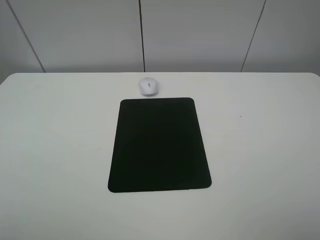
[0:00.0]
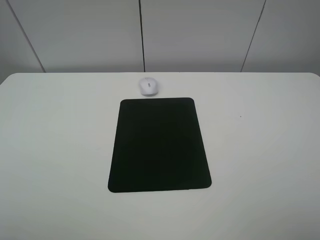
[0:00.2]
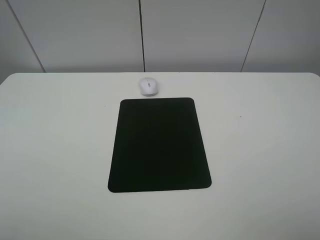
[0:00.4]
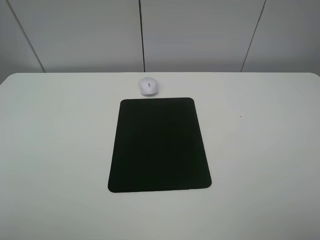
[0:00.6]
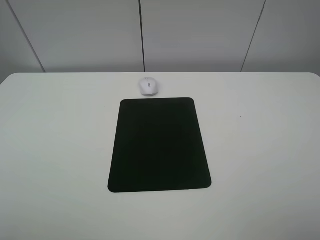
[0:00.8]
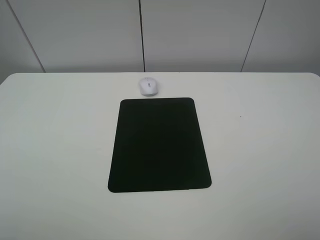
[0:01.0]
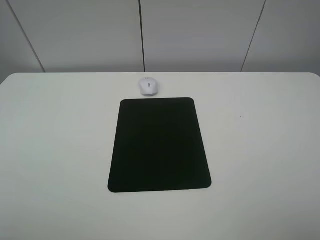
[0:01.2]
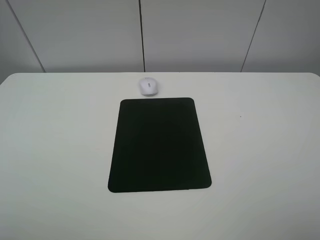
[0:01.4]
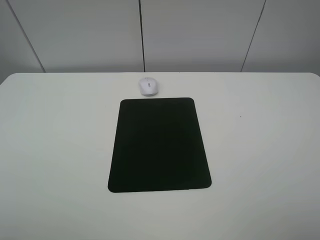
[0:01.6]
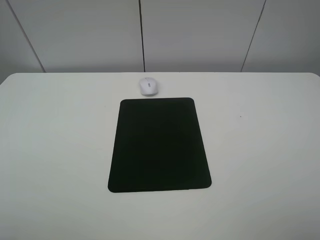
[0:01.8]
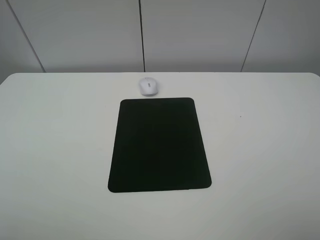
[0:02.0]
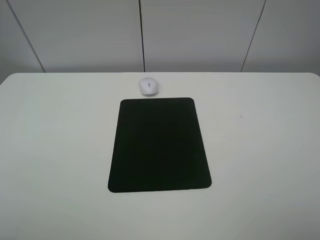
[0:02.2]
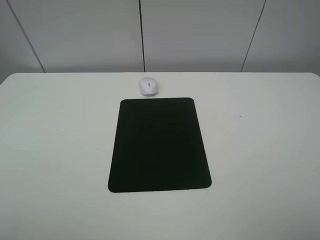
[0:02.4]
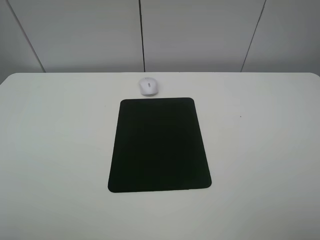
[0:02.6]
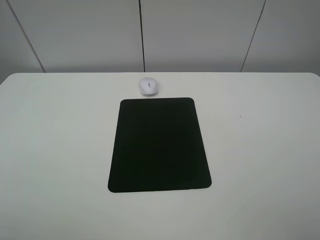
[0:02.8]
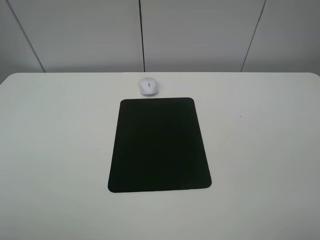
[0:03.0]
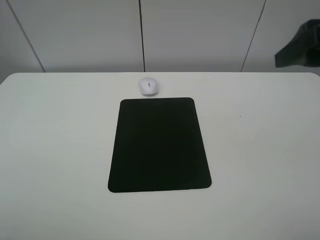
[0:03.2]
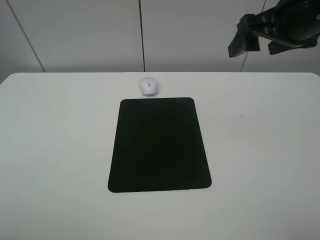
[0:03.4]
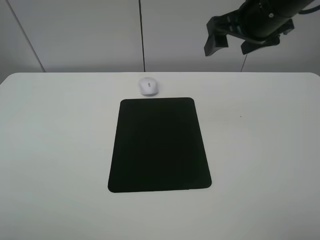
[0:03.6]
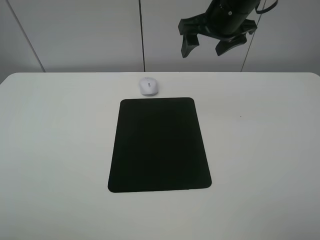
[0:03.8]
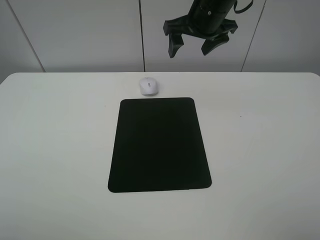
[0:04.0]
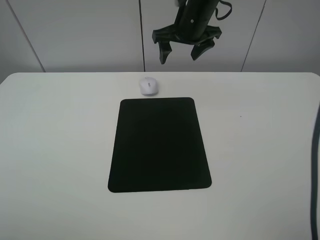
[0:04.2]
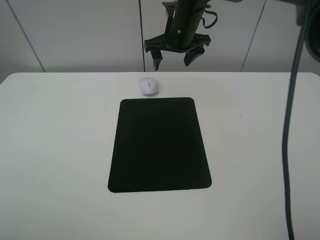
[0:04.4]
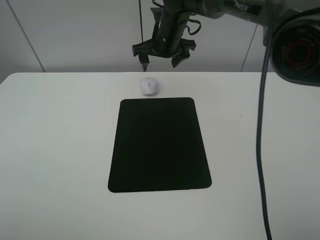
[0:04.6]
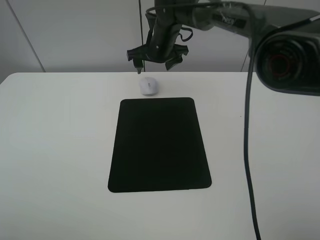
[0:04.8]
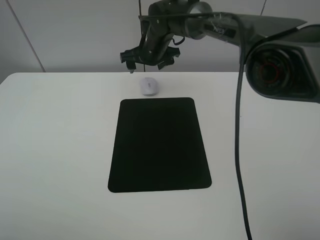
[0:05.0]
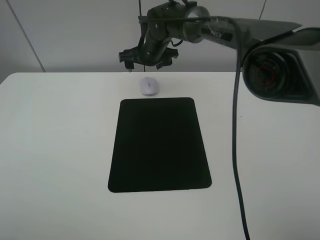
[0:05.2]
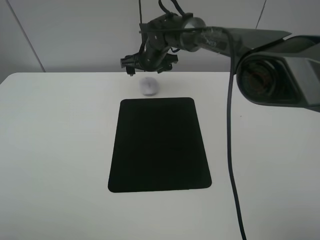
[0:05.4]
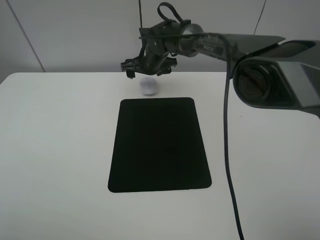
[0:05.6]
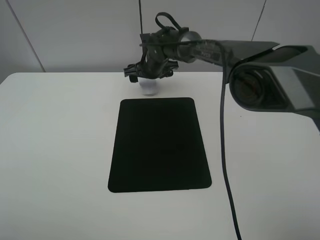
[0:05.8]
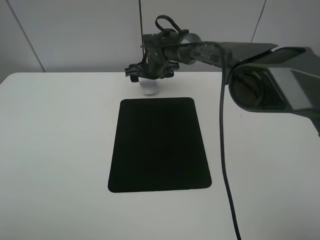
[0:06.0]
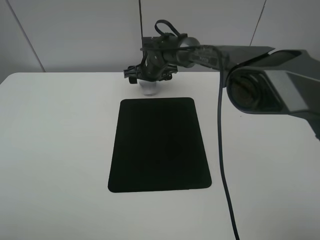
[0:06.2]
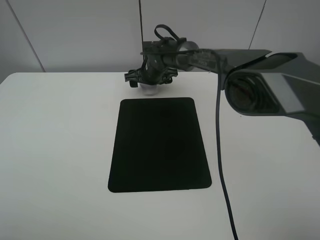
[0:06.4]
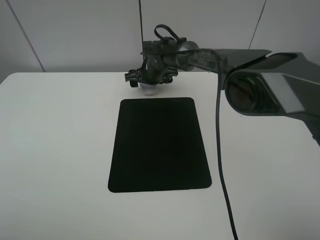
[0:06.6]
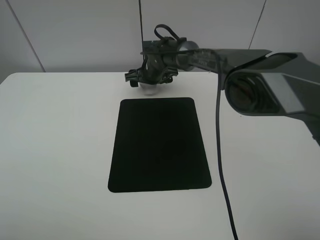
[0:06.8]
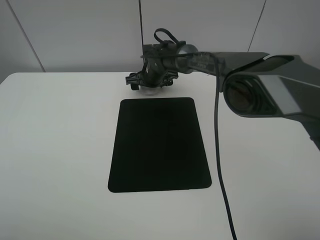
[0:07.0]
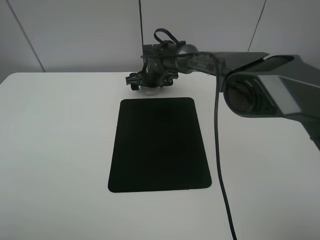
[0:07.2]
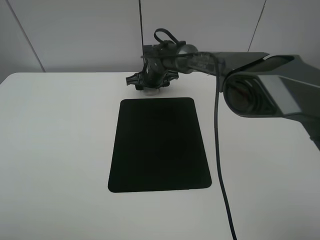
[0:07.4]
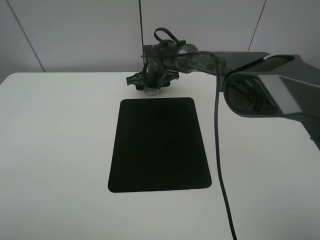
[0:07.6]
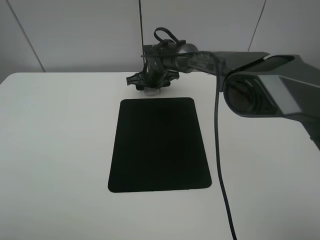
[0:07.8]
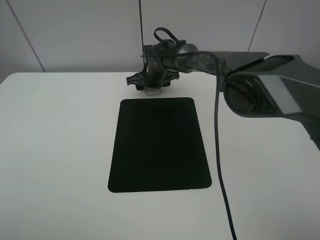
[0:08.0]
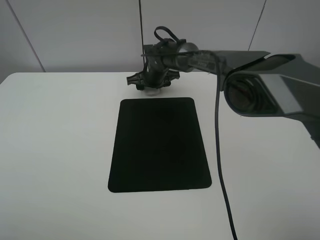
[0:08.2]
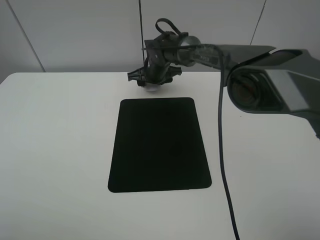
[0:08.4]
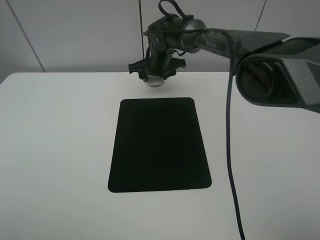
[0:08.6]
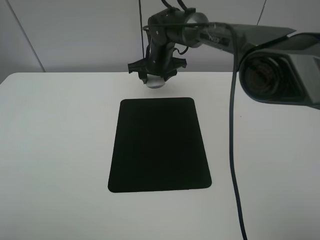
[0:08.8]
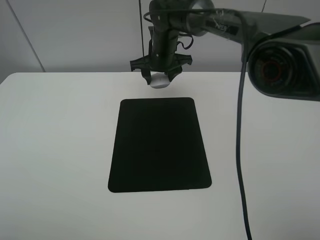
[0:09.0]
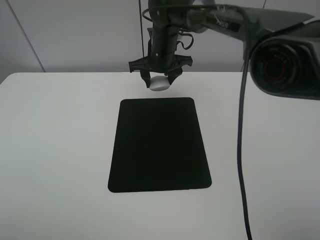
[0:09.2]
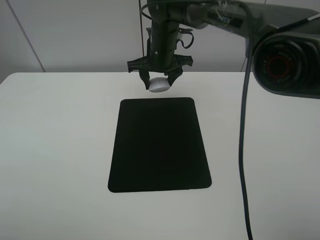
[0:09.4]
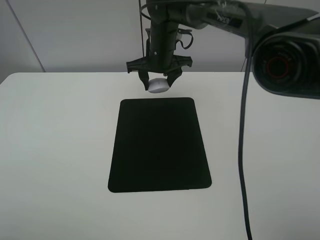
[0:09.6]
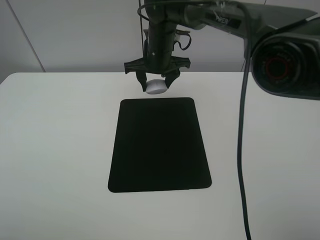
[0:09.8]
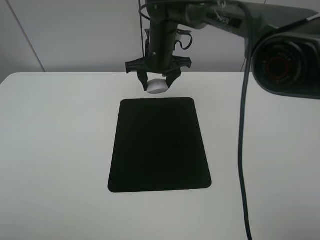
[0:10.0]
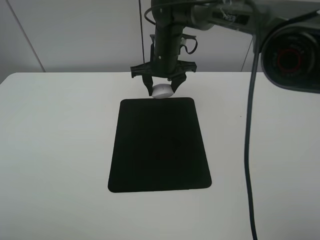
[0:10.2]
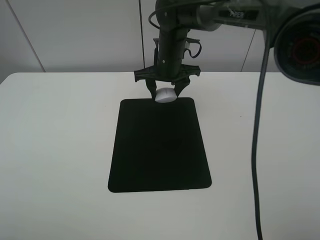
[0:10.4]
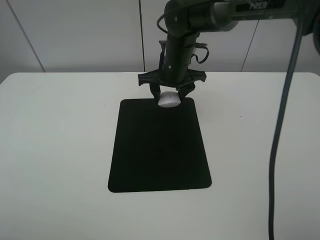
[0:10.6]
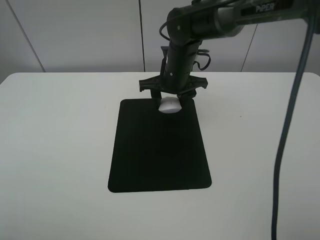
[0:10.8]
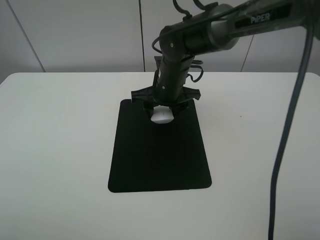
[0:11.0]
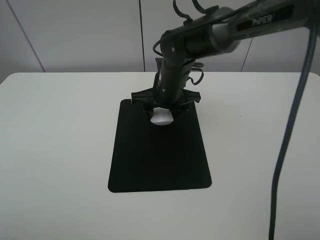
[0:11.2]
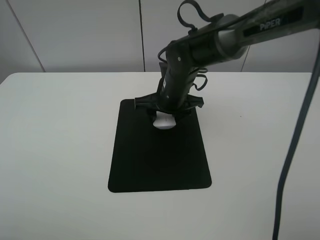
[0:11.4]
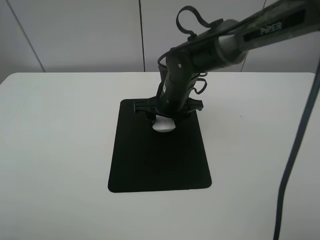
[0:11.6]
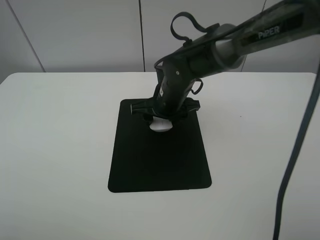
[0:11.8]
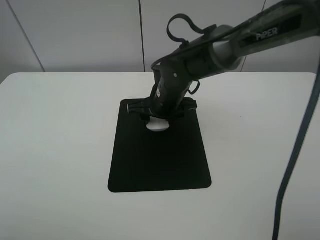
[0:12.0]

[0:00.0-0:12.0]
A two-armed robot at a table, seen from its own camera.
Step, 0:00.0 to 0:08.2: Grasp the mouse with the right gripper.
0:00.0 to 0:01.6: Neither gripper changes place.
0:03.0 to 0:04.4: The right gripper travels forward and to the left by some 35 cm.
0:04.4 to 0:06.0: The right gripper moves downward and to the left, some 15 cm.
0:06.0 to 0:07.6: The right gripper closes up.
0:07.6 to 0:09.0: The right gripper is displaced upward by some 10 cm.
0:09.0 to 0:10.4: The grippers stay close to where they were, moving slightly.
0:10.4 to 0:12.0: The right gripper moves backward, roughly 10 cm.

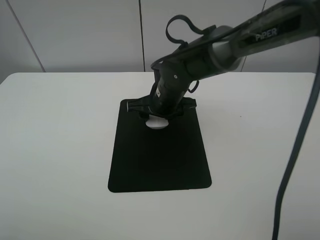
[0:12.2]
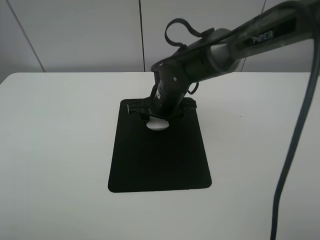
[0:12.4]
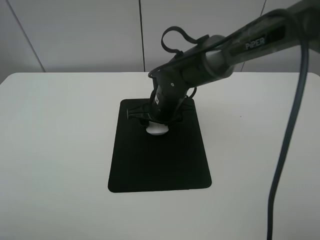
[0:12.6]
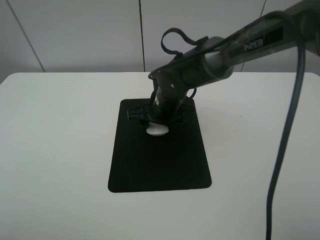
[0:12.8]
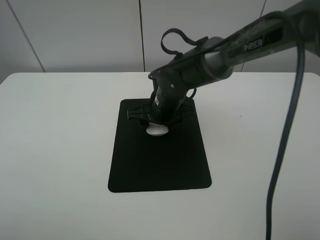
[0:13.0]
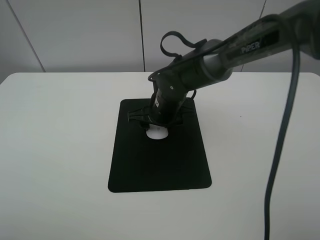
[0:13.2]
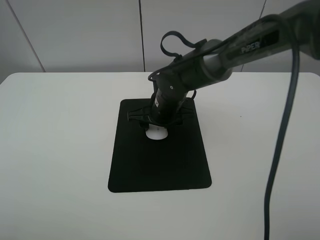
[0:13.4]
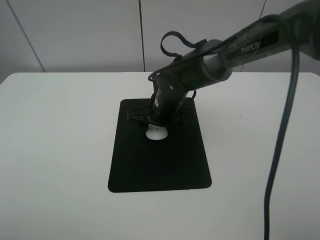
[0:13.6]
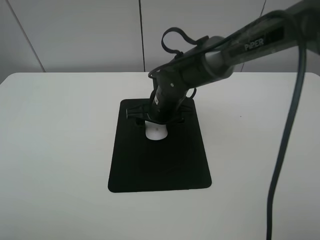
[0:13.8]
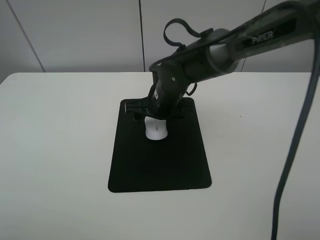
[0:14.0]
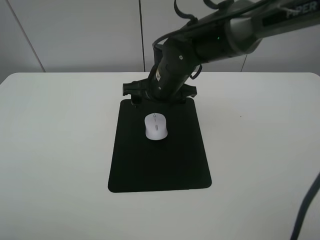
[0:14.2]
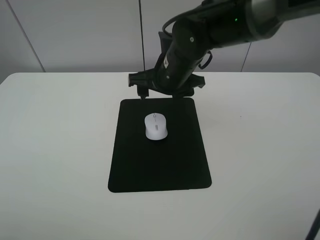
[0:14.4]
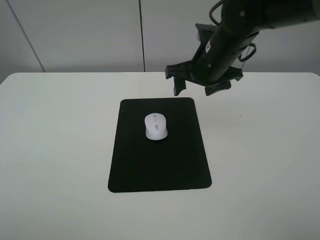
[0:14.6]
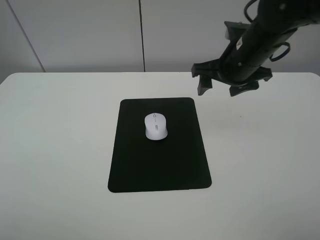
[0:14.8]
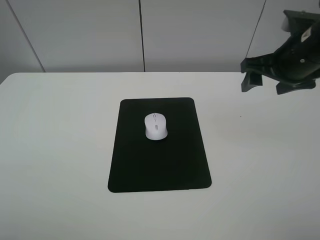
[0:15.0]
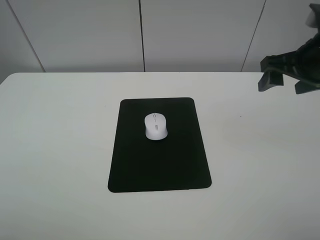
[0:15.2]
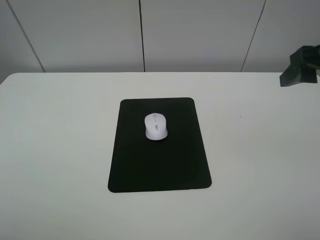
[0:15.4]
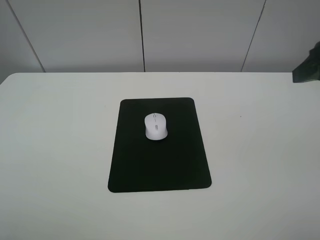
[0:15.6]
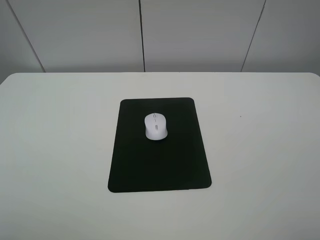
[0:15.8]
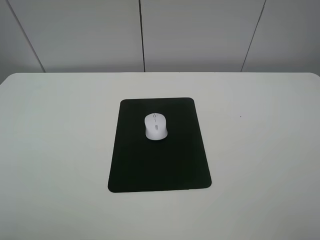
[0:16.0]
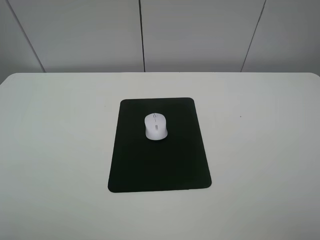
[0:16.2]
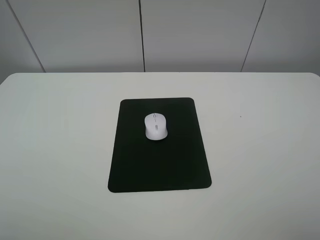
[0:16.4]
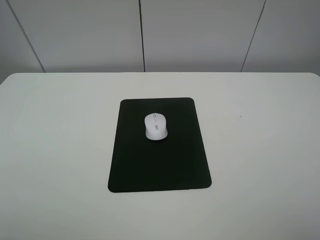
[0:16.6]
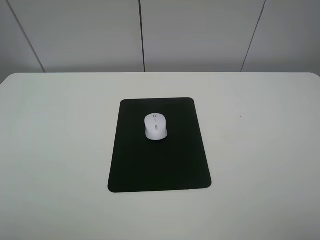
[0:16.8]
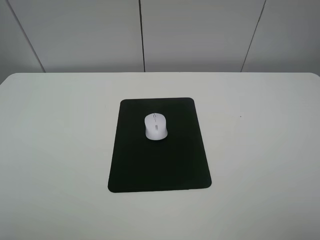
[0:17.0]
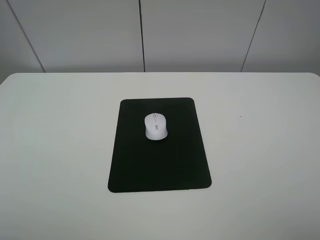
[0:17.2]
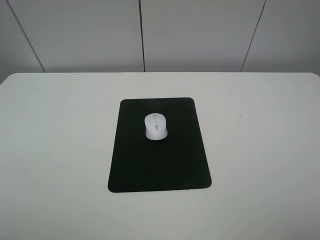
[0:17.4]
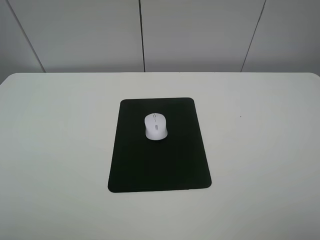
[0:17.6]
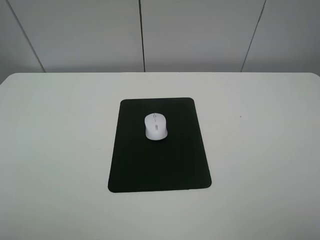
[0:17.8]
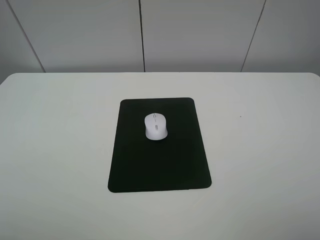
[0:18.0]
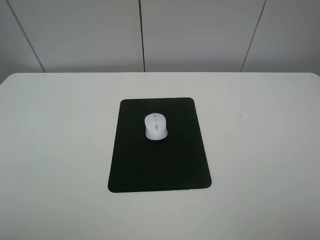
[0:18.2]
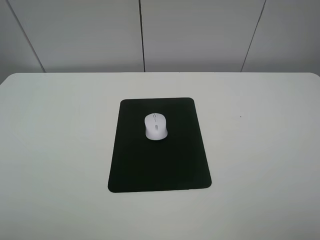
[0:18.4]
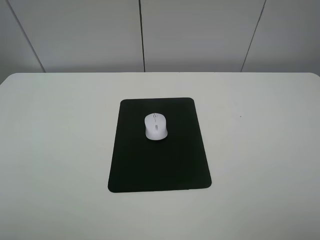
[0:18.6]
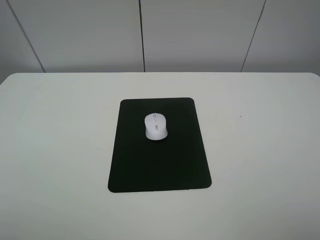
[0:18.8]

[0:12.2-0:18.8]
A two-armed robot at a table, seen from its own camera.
0:12.2 to 0:13.8: The right gripper opens its fingers.
0:13.8 to 0:15.4: The right gripper is displaced to the right, upward and backward by roughly 35 cm.
0:15.4 to 0:17.2: The right gripper heads backward, covering about 20 cm.
